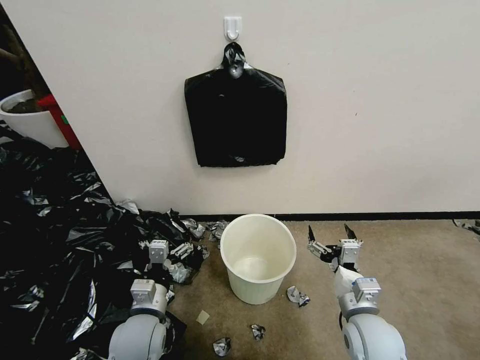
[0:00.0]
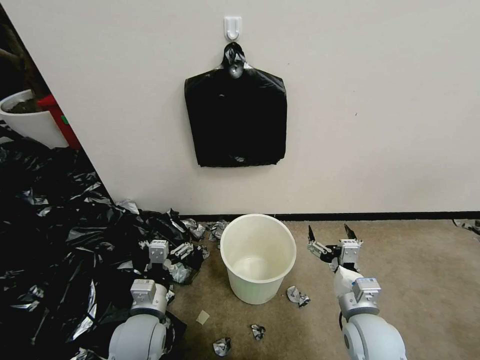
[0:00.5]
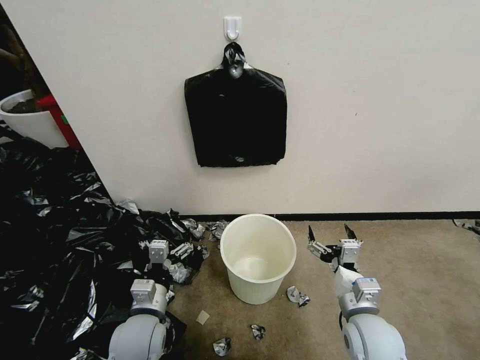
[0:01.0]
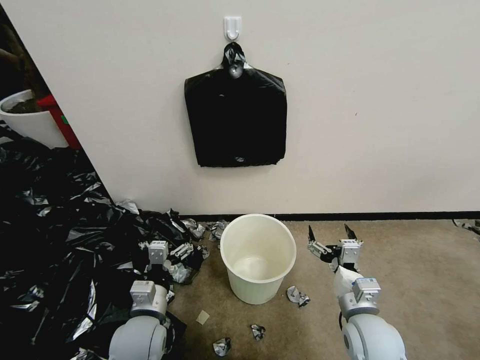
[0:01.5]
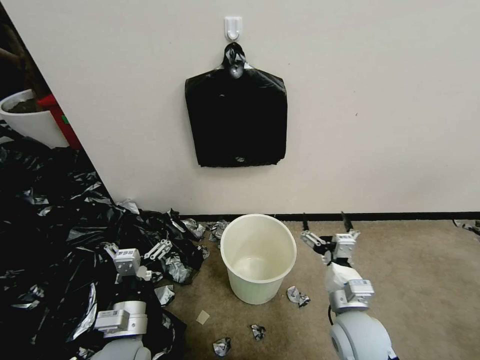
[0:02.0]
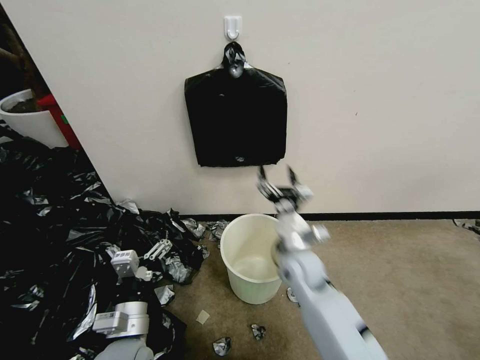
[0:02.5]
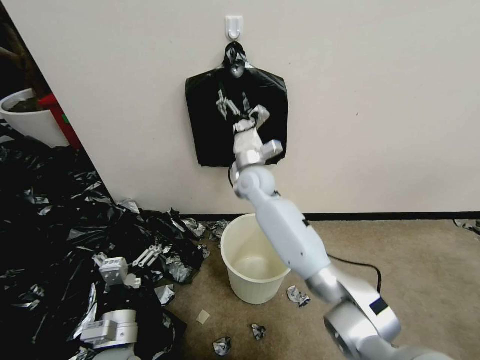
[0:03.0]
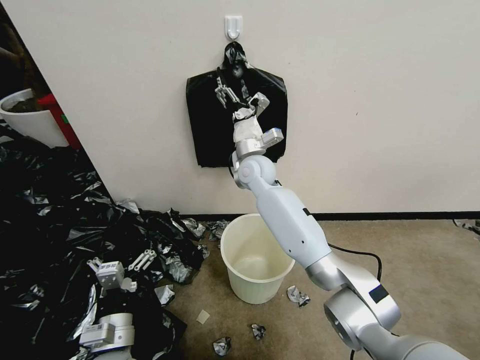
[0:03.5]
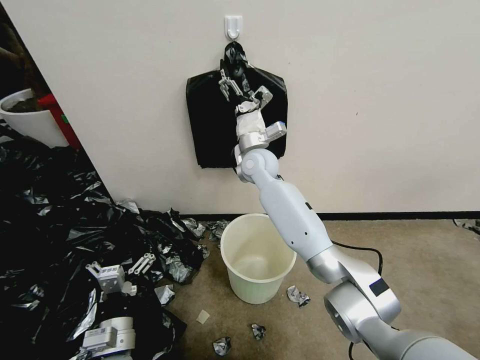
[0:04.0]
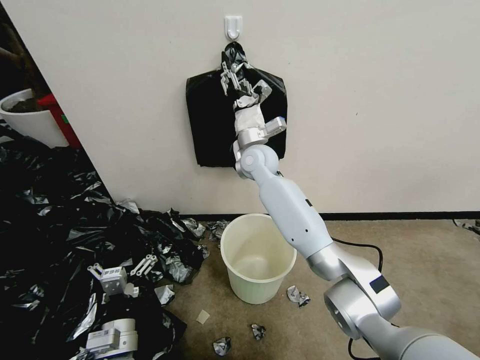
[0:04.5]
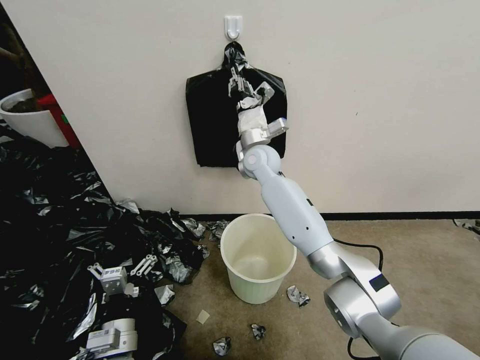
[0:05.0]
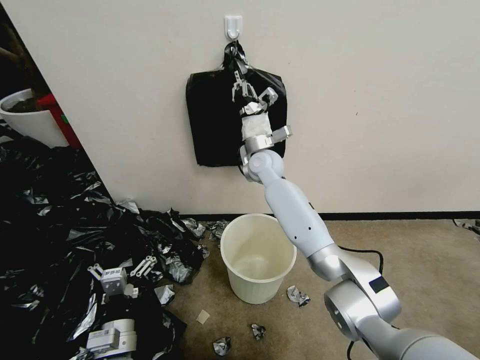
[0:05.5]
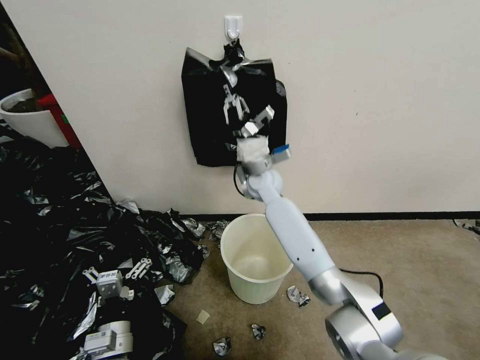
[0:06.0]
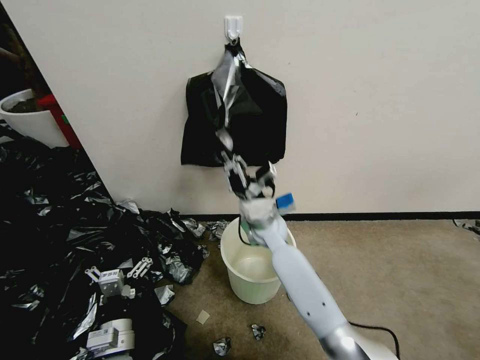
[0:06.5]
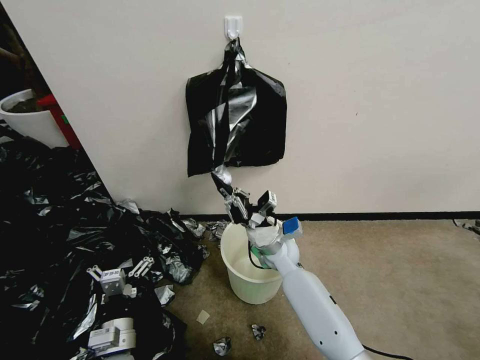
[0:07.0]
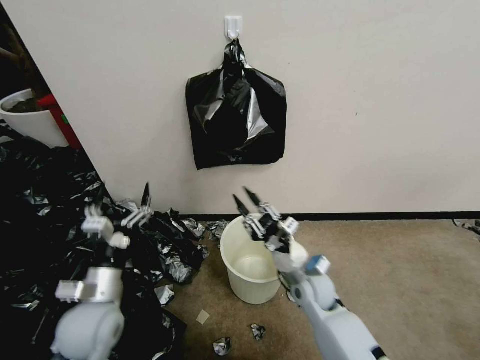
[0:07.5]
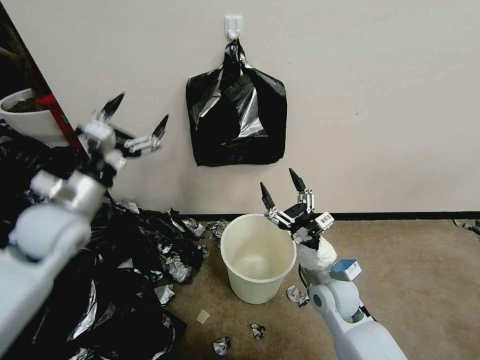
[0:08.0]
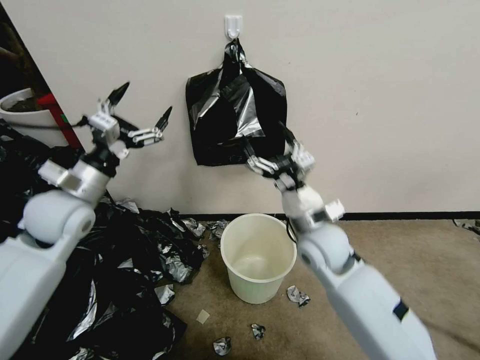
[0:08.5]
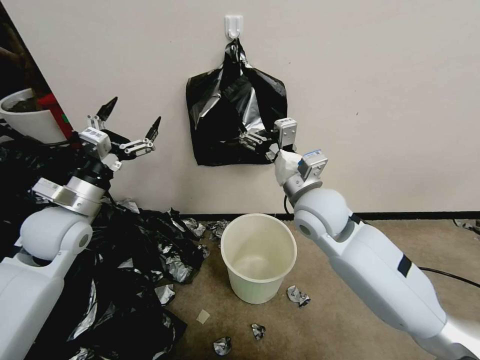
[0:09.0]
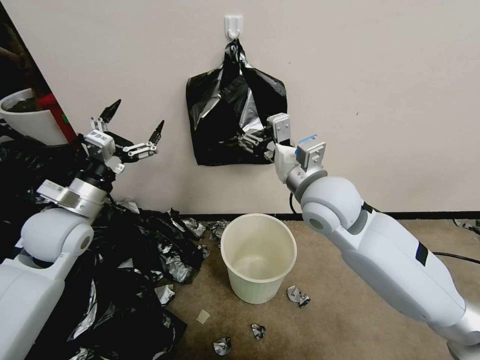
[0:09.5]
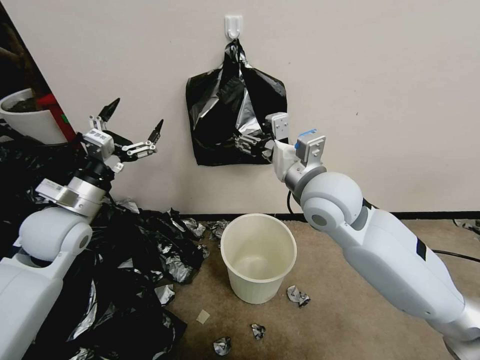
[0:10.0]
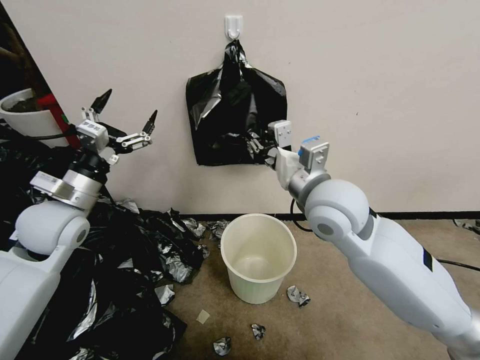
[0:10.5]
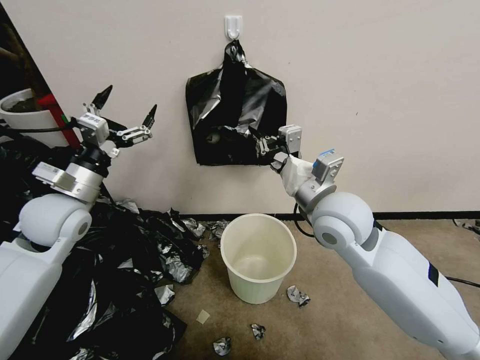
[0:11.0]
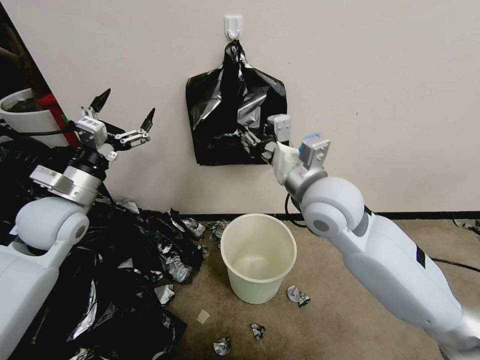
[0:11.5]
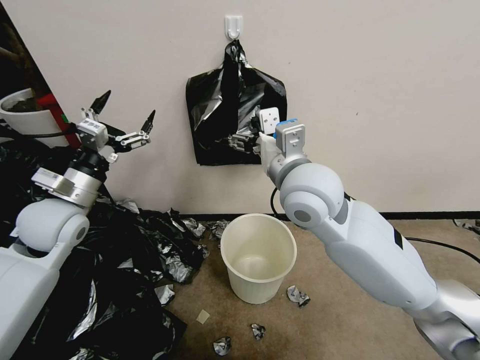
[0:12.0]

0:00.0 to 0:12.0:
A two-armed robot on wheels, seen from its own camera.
Task of the whole recording: Place a trash bag onto the trash bin.
0:02.0 to 0:04.0: The right gripper goes some 40 cm forward, to the left and upward.
0:04.0 to 0:06.0: The right gripper shifts by approximately 5 cm, and closes.
0:06.0 to 0:08.0: The right gripper moves backward, to the right and downward, approximately 30 cm, and opens its fingers. Meanwhile the left gripper shifts approximately 30 cm upward and forward.
0:08.0 to 0:10.0: The right gripper heads upward, covering roughly 25 cm.
0:10.0 to 0:12.0: The right gripper shifts by approximately 5 cm, and closes and opens again.

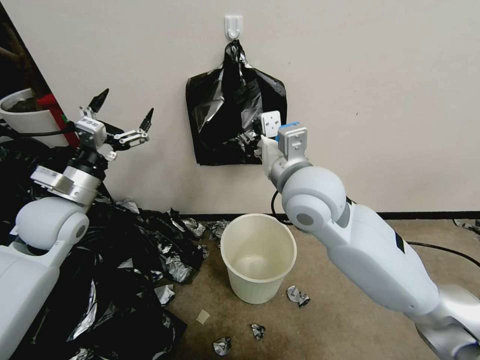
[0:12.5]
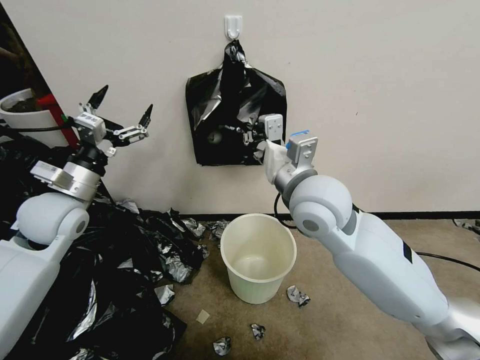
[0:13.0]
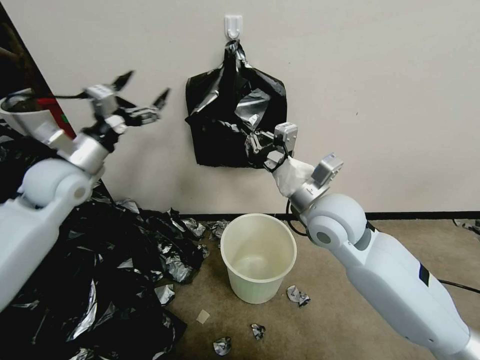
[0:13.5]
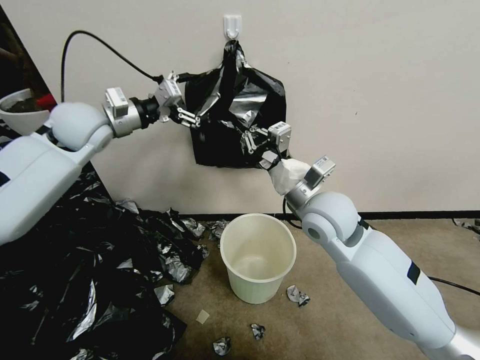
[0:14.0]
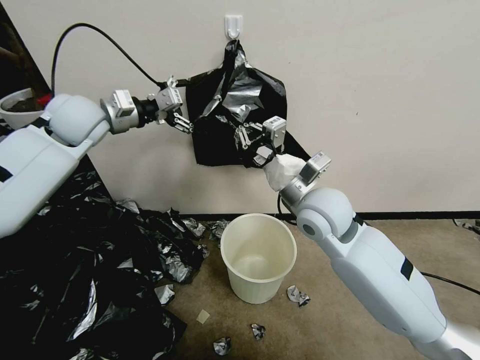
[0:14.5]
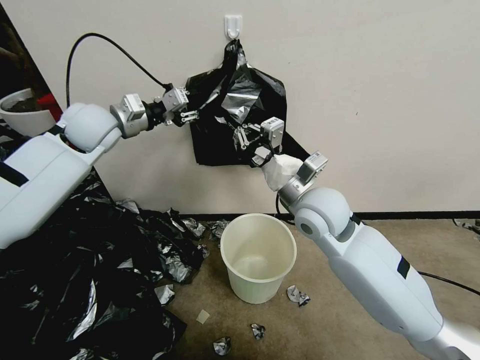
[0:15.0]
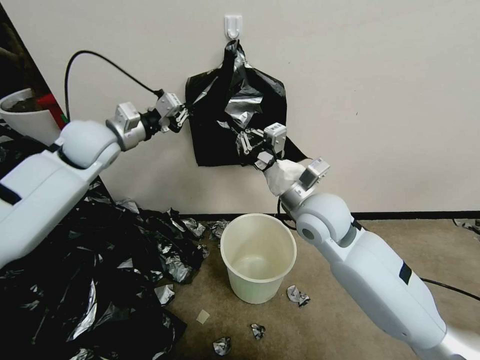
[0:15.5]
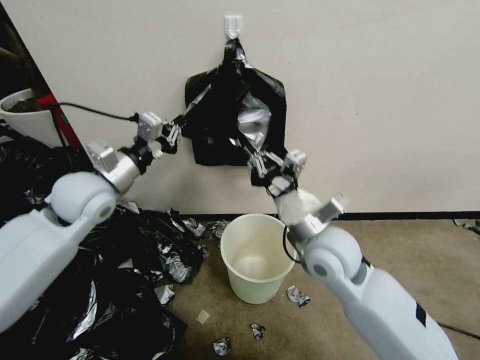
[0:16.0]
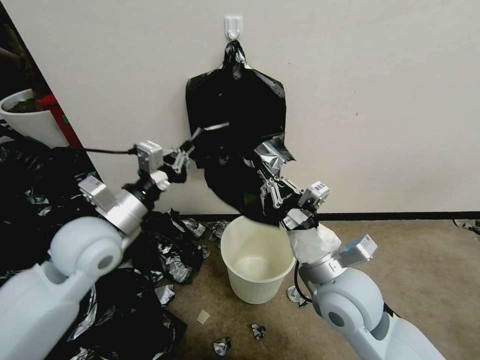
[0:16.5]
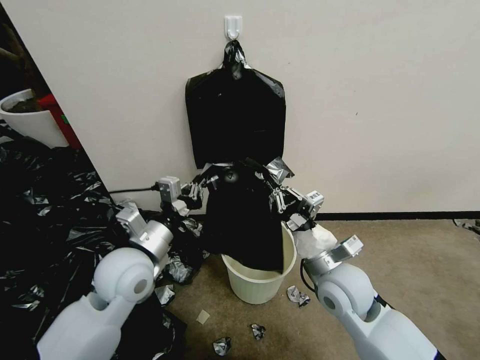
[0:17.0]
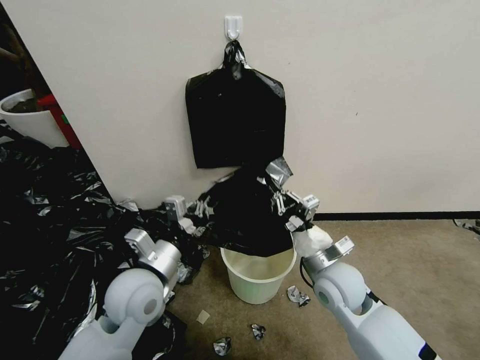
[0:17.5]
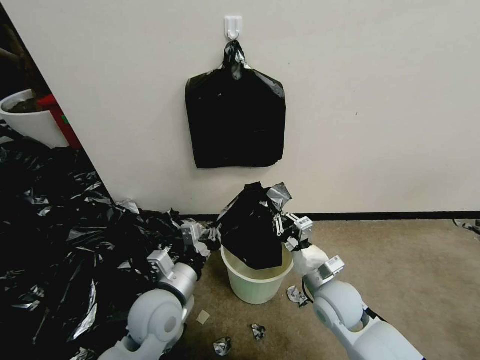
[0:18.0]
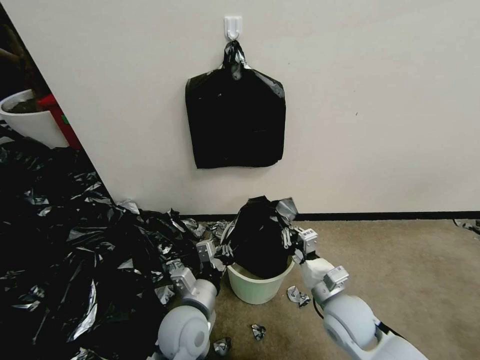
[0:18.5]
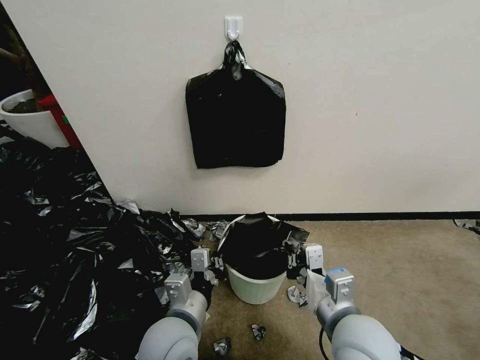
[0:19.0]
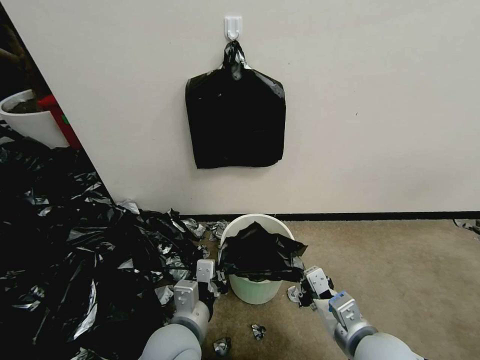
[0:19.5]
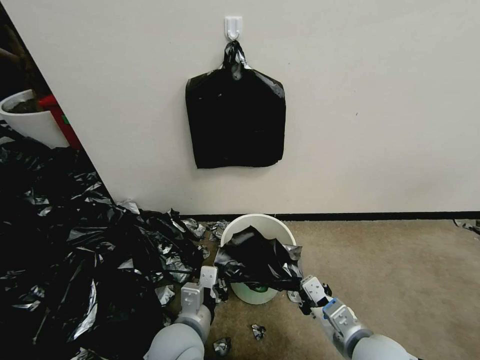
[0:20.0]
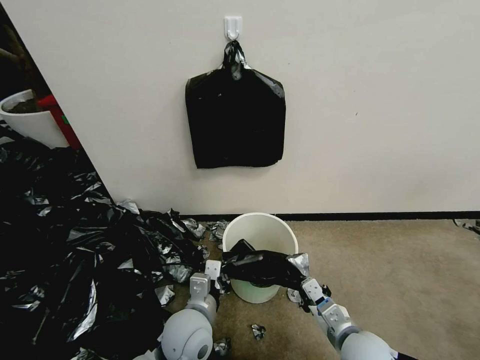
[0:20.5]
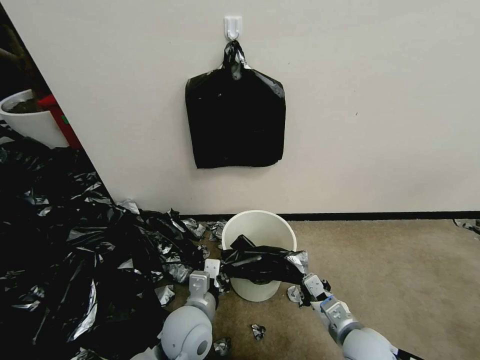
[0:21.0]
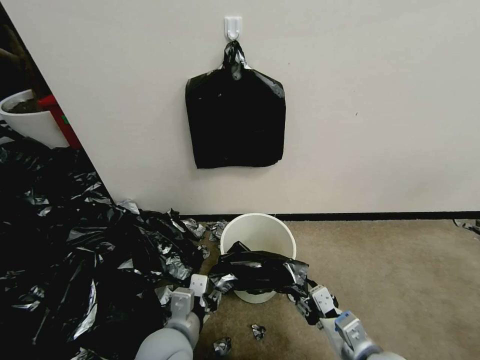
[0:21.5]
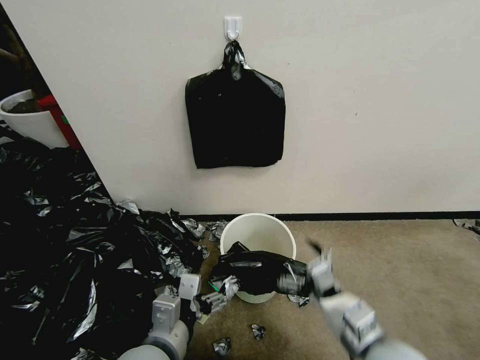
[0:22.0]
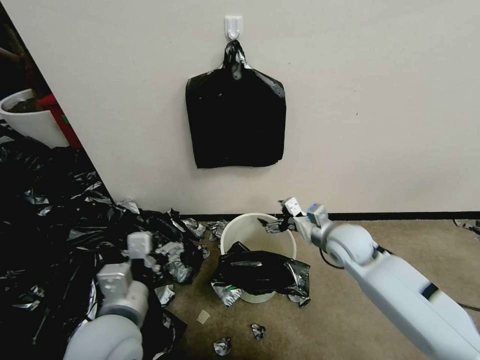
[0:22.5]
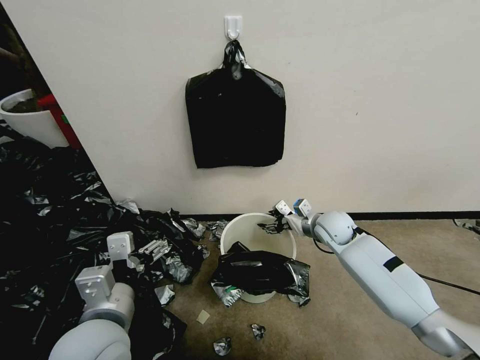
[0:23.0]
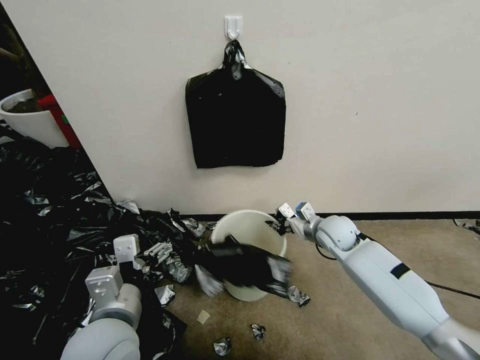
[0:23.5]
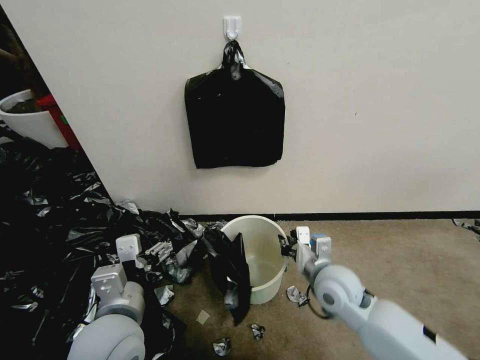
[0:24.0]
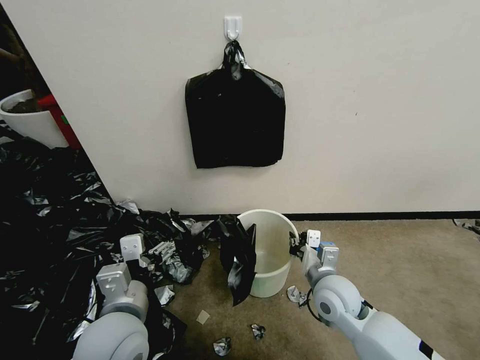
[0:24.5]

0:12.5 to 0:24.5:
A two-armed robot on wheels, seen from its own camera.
Task of the whole recording: Place a trash bag onto the trash bin.
0:12.5 to 0:14.5: The right gripper travels downward by roughly 5 cm, and closes. Meanwhile the left gripper travels forward and upward by about 20 cm.
0:14.5 to 0:16.5: The left gripper is displaced backward and downward by about 25 cm, and closes up; the right gripper moves backward and downward, about 15 cm.
0:16.5 to 0:18.5: The left gripper goes about 25 cm downward, to the right and backward. Meanwhile the right gripper goes some 15 cm downward.
0:18.5 to 0:20.5: The right gripper shifts about 5 cm backward, and reaches approximately 10 cm upward, then returns.
0:20.5 to 0:22.5: The right gripper shifts approximately 20 cm forward and upward, and opens. Meanwhile the left gripper travels upward and to the left by about 15 cm, and opens up.
0:22.5 to 0:24.5: The right gripper goes about 10 cm backward and downward, and closes up.

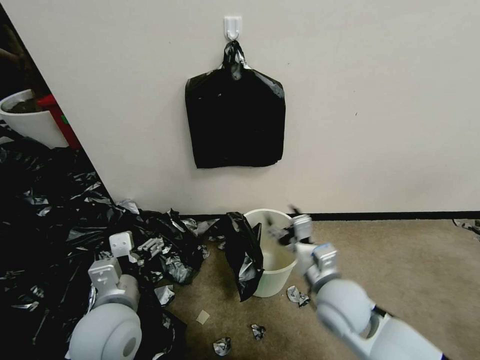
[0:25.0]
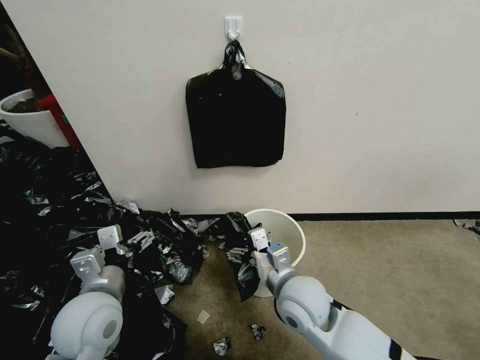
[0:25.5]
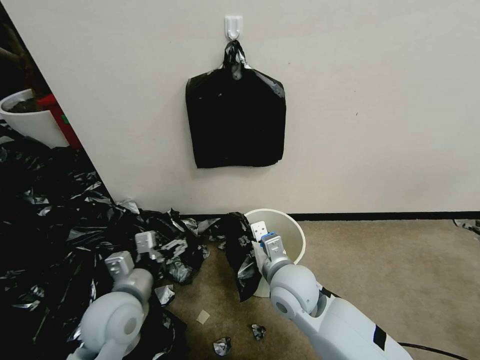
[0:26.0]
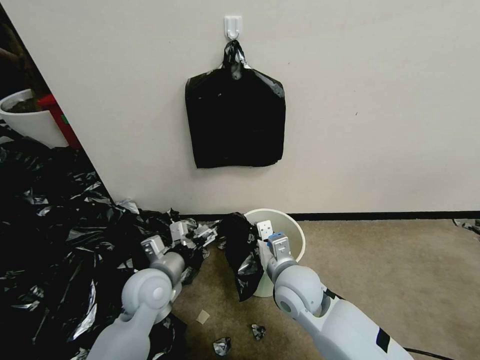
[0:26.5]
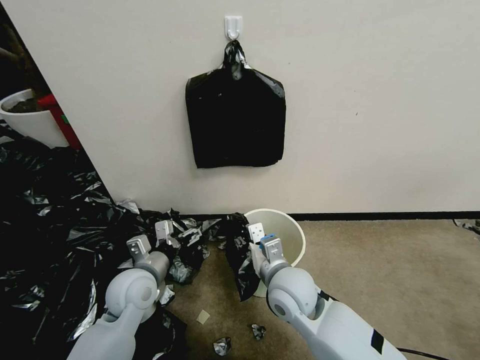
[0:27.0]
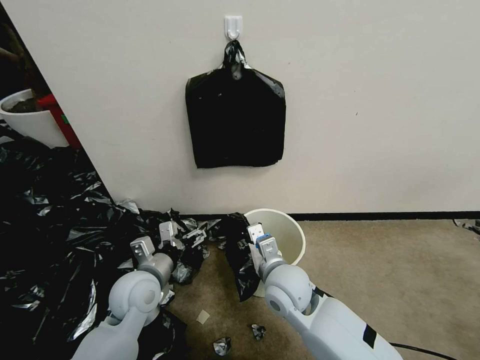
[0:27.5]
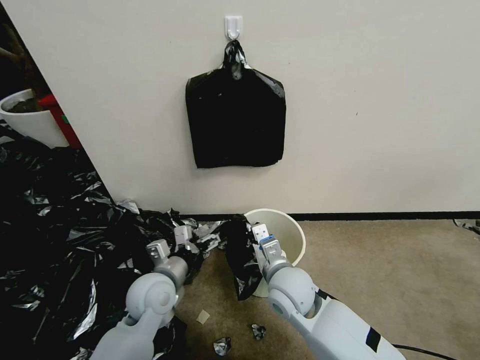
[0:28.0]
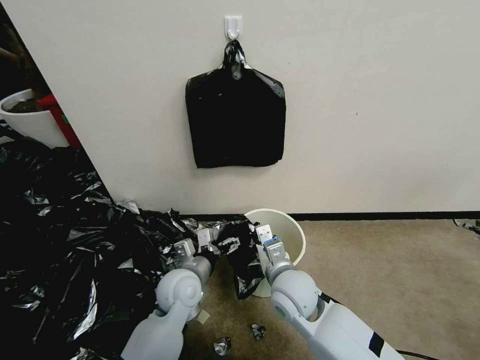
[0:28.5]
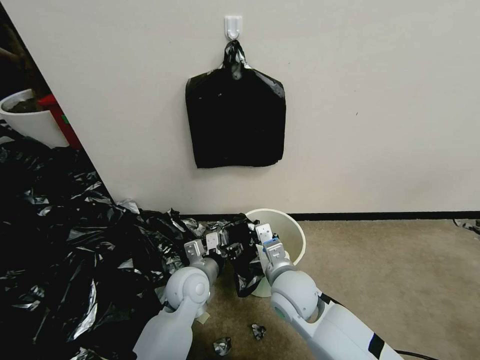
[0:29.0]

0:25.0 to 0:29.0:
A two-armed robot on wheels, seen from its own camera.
Task of the whole recording: Place a trash bag onto the trash bin.
0:25.0 to 0:27.0: The left gripper is displaced forward and downward by some 10 cm; the right gripper heads to the left, covering roughly 10 cm, and closes.
0:27.0 to 0:29.0: The right gripper closes up; the left gripper heads to the right, covering approximately 10 cm.
